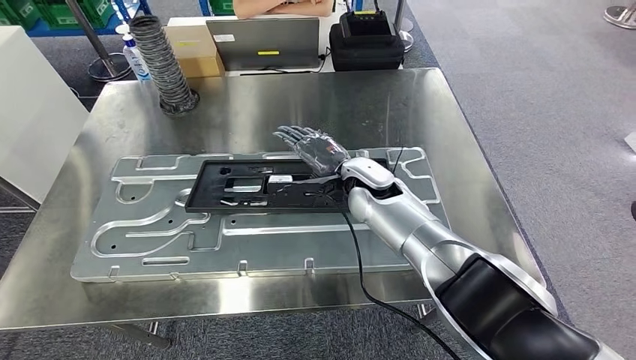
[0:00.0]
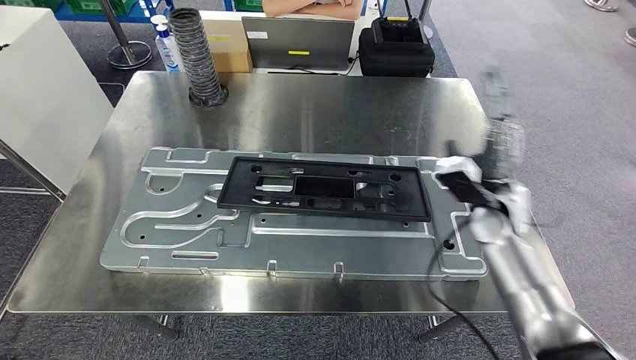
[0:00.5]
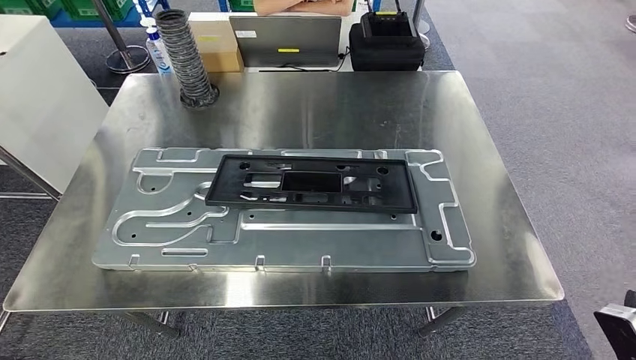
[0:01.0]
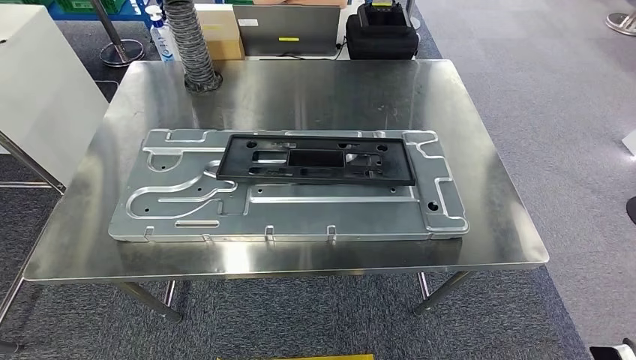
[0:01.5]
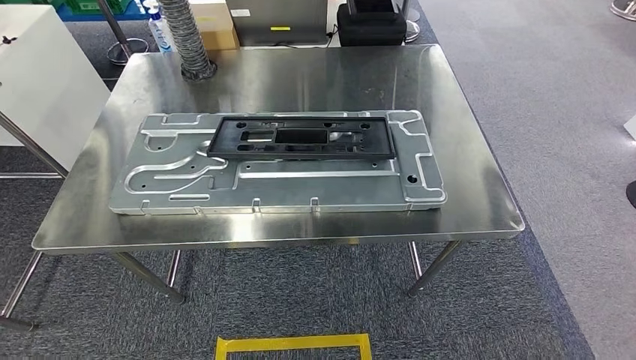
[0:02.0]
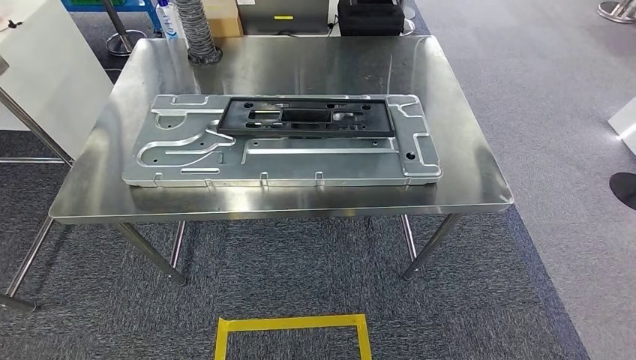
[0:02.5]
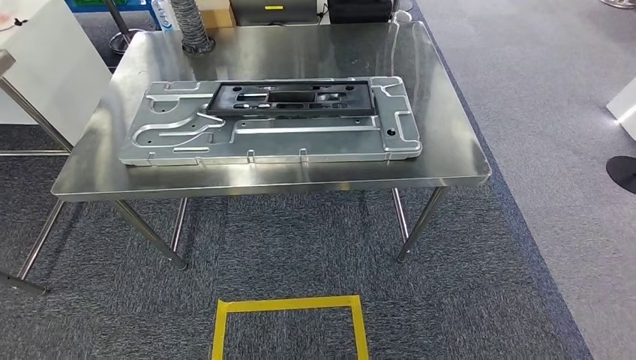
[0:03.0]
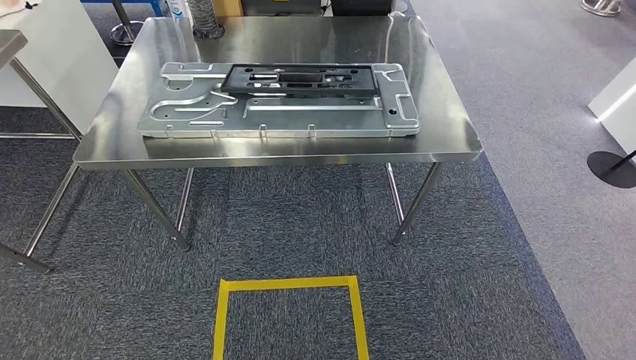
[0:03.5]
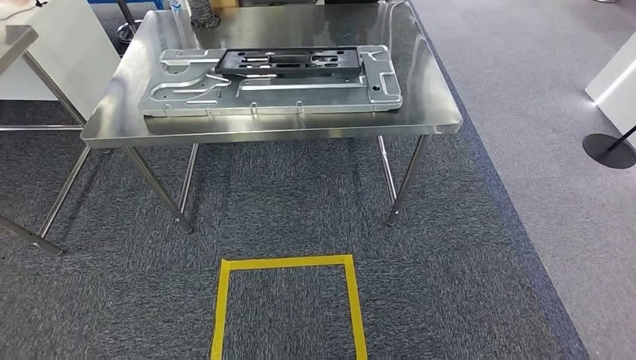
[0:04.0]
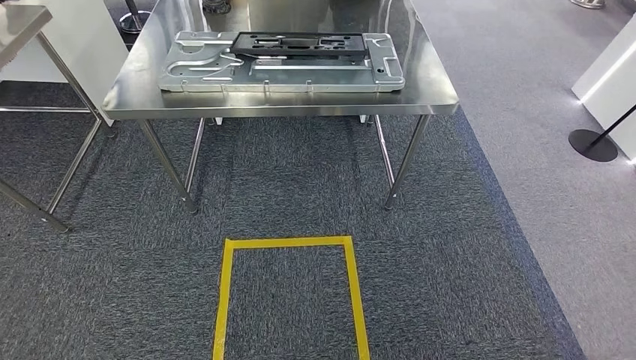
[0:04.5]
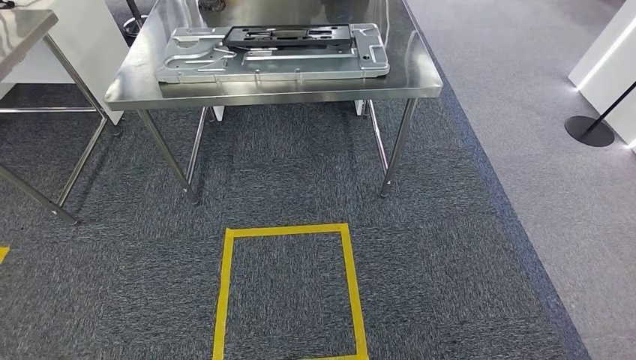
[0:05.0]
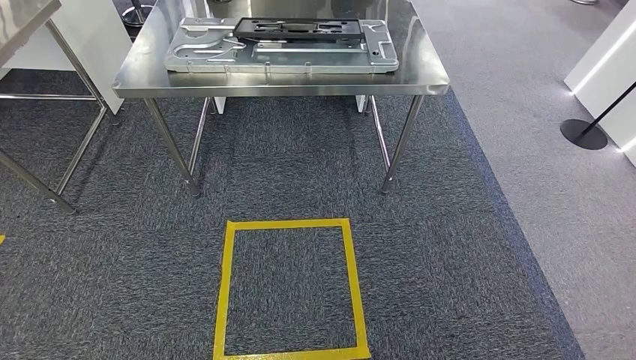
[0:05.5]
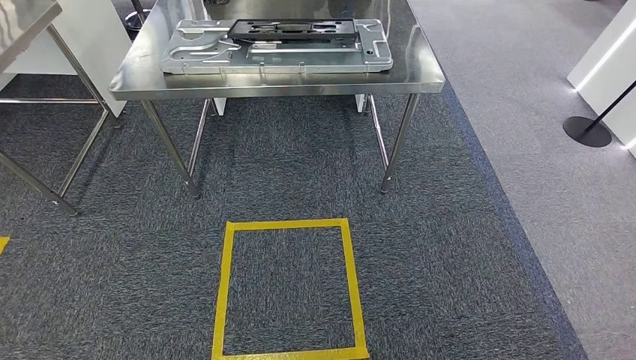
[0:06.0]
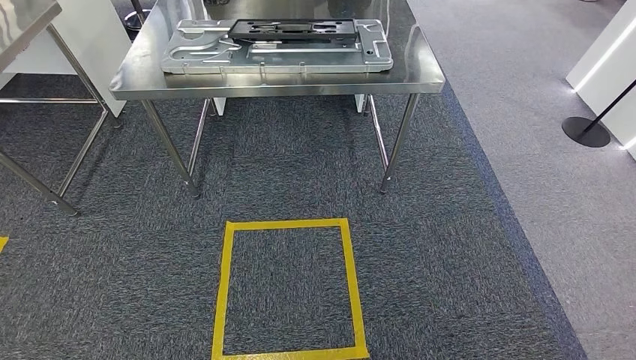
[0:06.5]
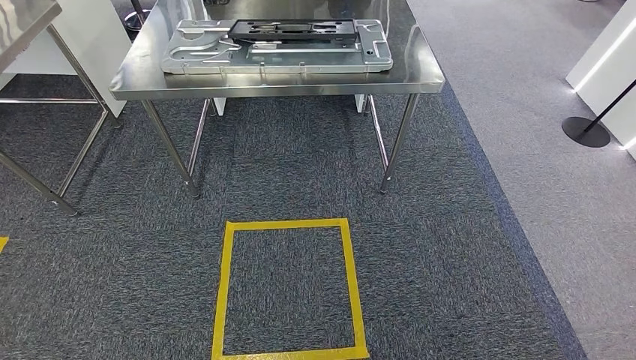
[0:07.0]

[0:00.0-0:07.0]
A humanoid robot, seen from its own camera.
Step, 0:02.0 to 0:07.0: Return to the initial position at the shelf.
0:05.0 to 0:07.0: There are only small adjustments of the hands.

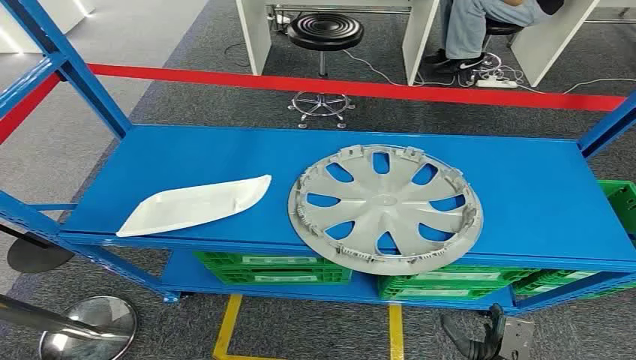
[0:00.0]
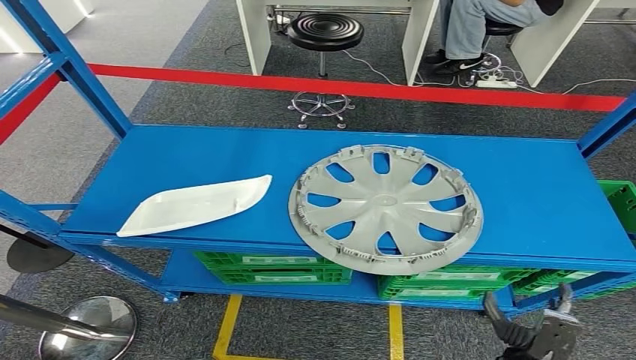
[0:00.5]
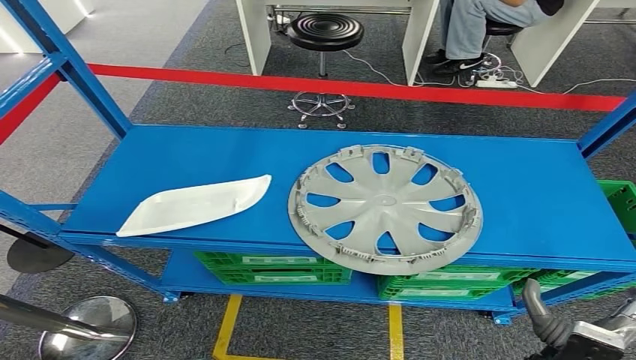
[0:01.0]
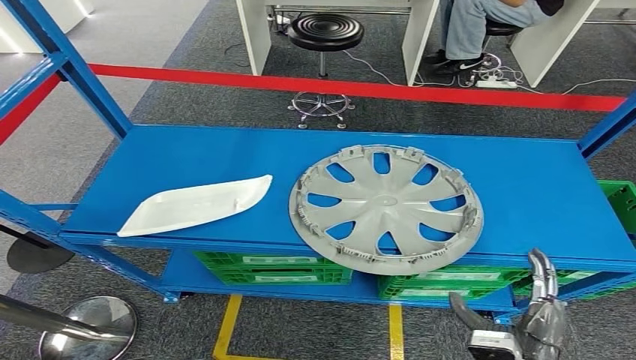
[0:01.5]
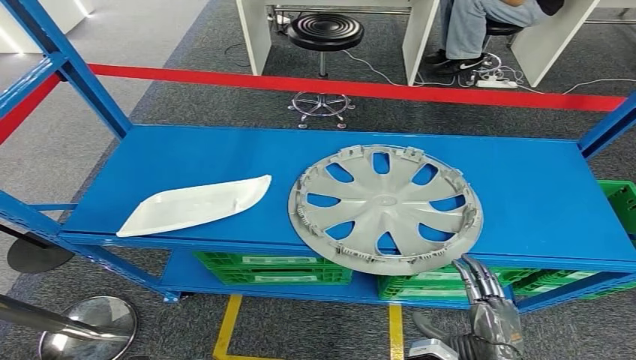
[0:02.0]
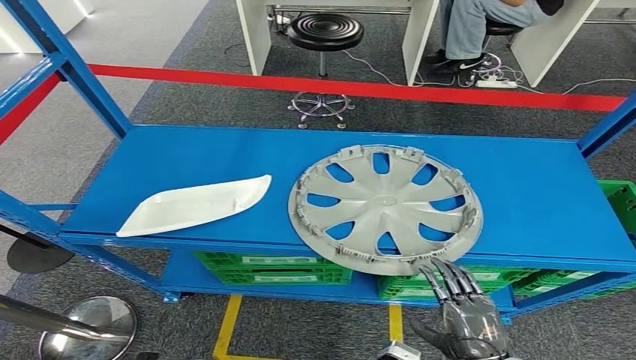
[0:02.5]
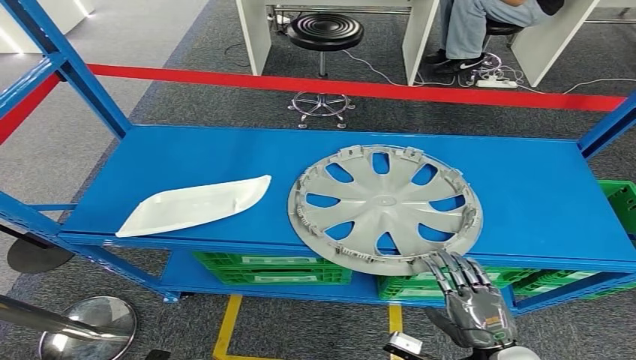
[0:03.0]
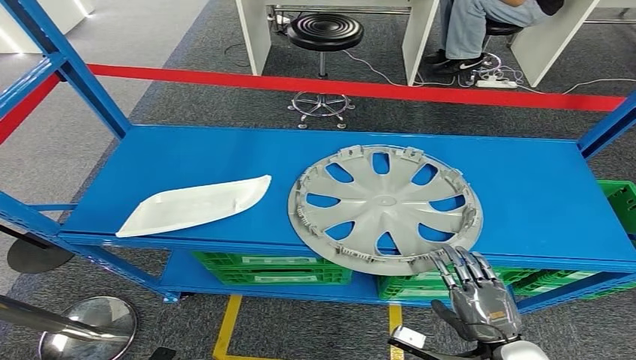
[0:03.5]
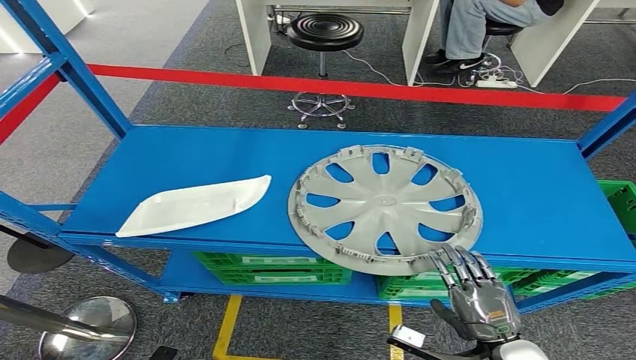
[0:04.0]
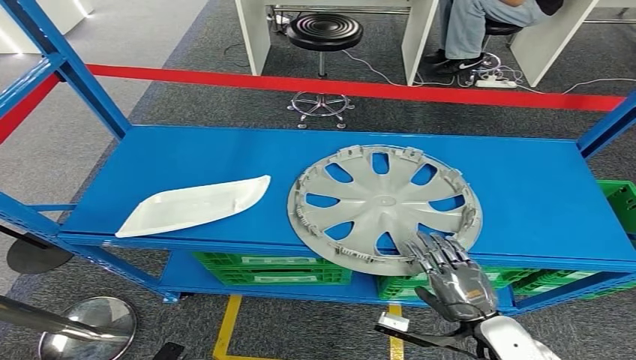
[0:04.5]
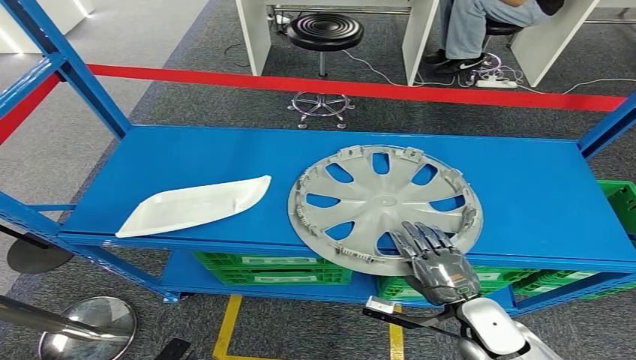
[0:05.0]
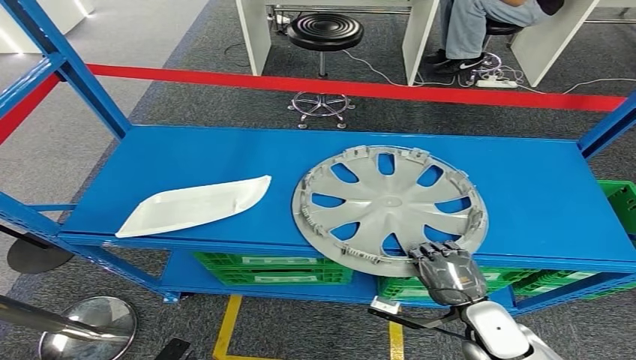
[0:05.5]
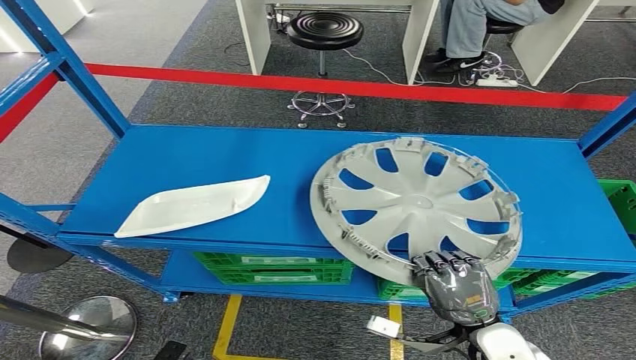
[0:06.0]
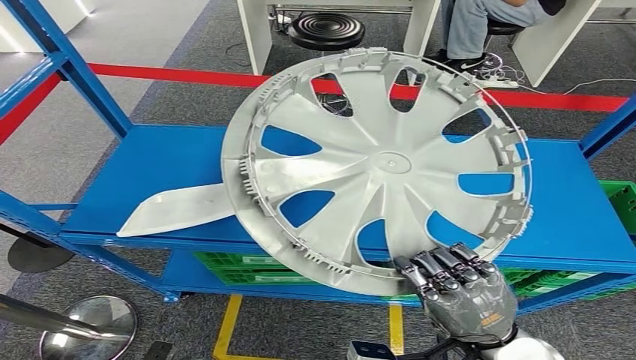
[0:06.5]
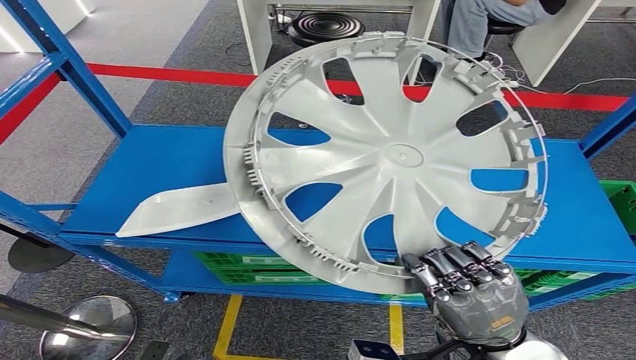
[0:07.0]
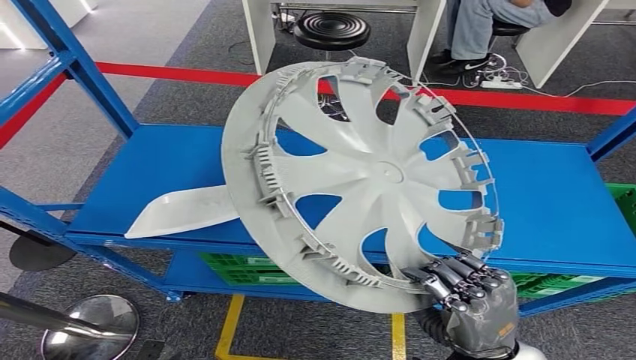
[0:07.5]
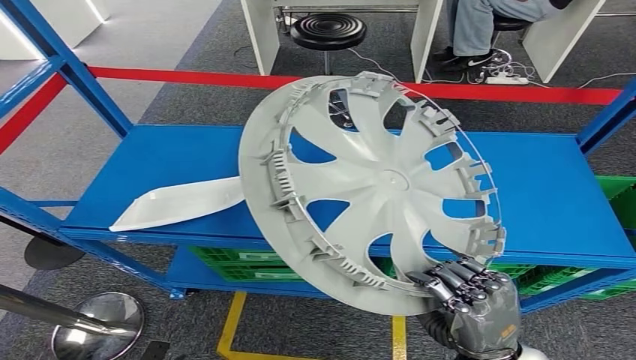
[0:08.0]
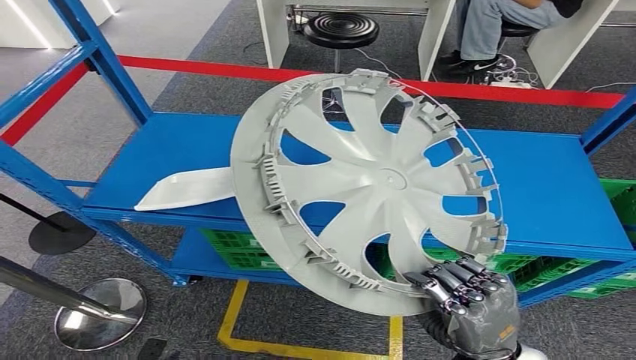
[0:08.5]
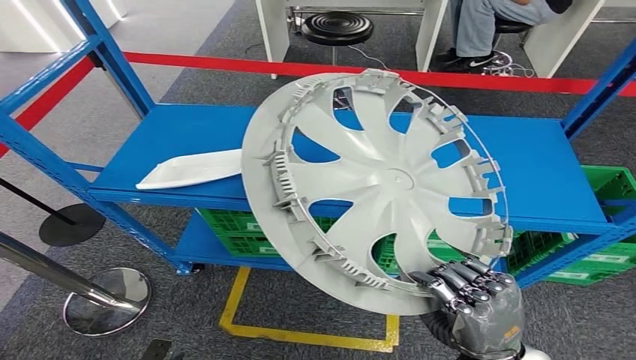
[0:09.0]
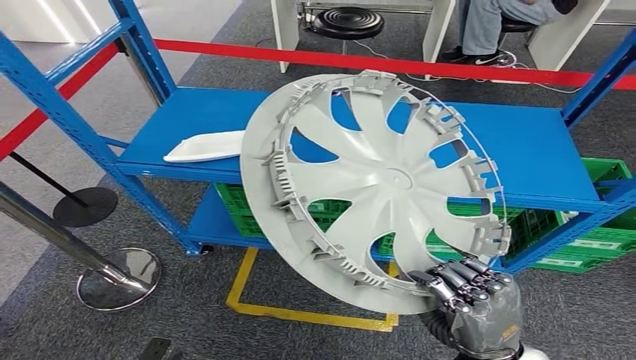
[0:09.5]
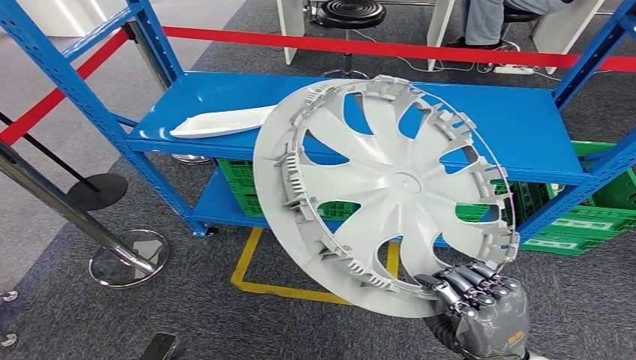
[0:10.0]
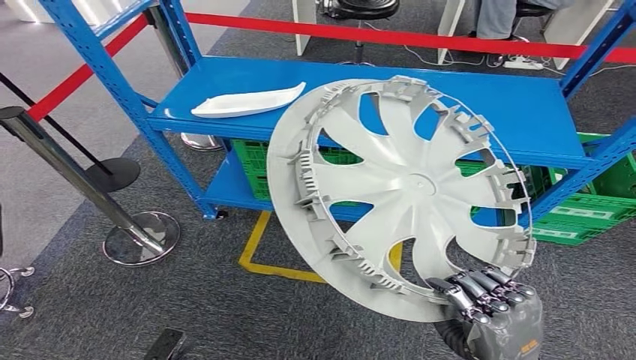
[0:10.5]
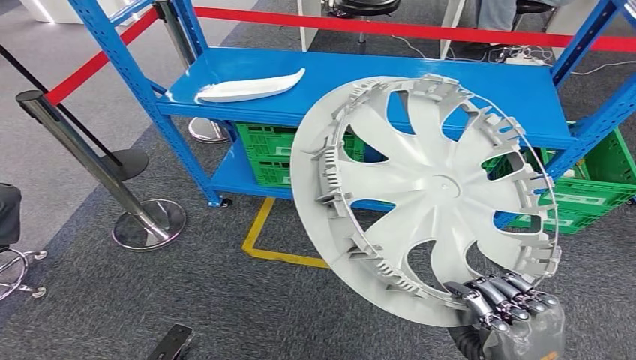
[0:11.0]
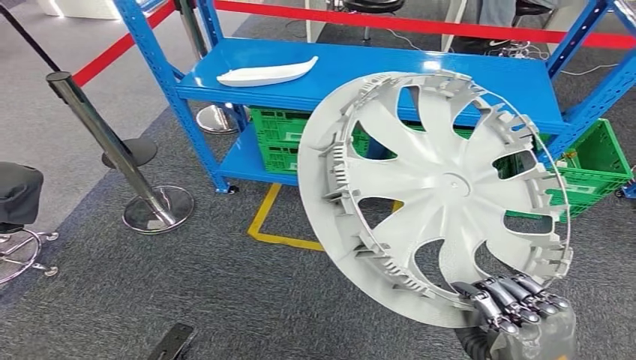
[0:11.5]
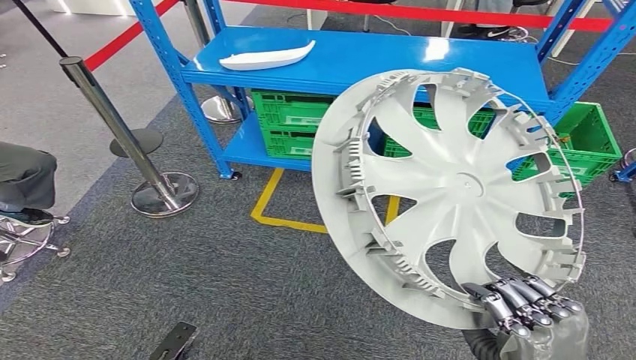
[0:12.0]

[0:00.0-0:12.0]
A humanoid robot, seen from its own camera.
Step, 0:00.0 to 0:09.0: Pick up the small parts from the shelf.
0:02.0 to 0:04.0: The right hand ends up roughly 5 cm from where it was.
0:04.0 to 0:06.0: The right hand ends up roughly 5 cm from where it was.

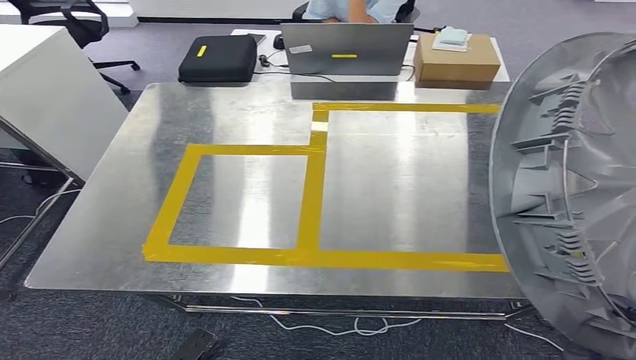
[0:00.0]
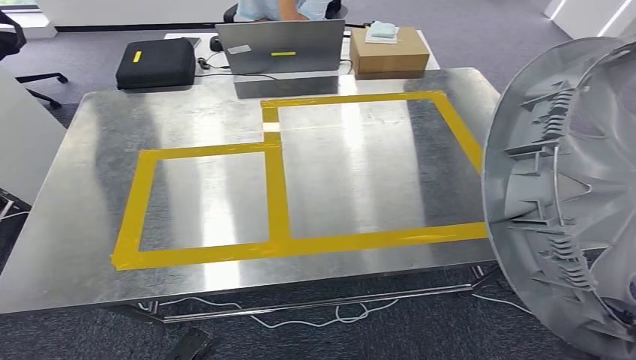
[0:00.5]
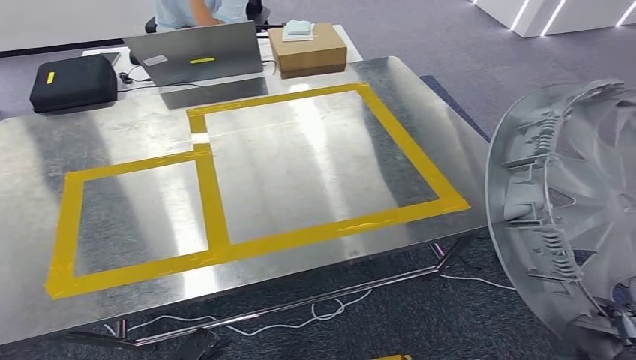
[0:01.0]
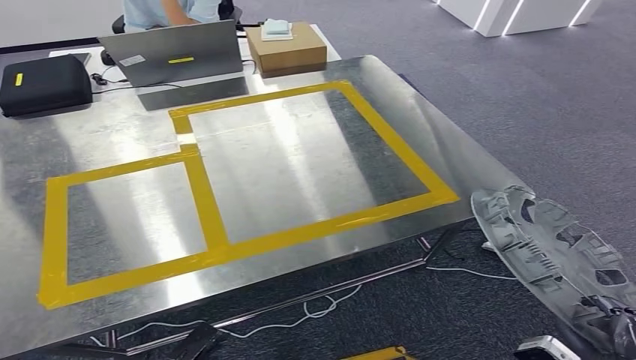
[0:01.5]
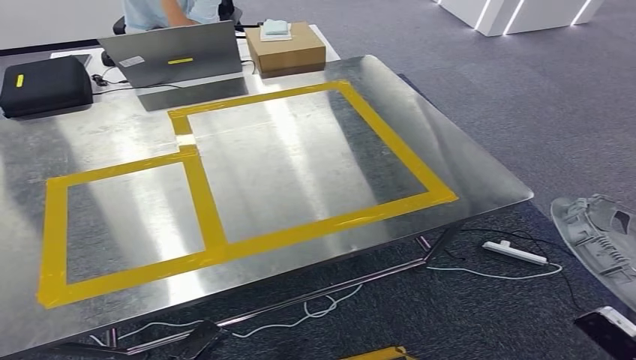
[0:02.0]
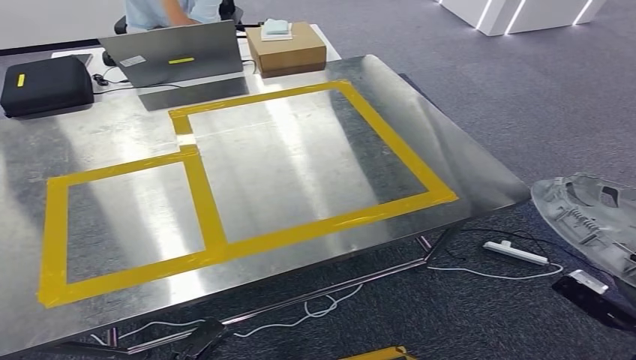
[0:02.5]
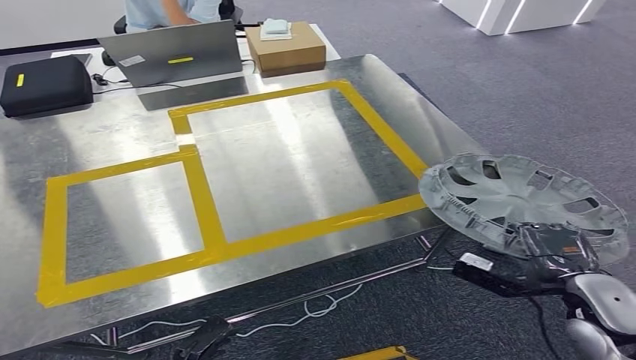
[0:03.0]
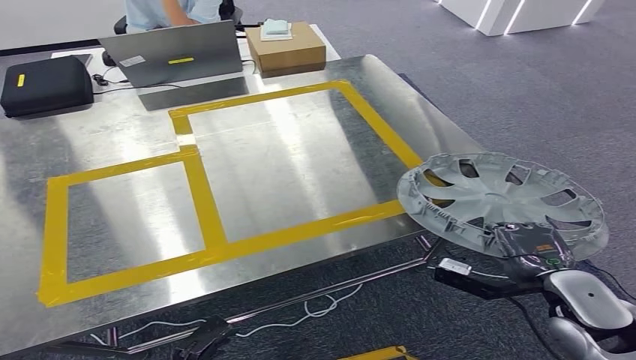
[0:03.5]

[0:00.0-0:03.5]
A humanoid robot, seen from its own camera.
0:02.0 to 0:03.5: The right hand heads forward and to the left, covering approximately 20 cm.
